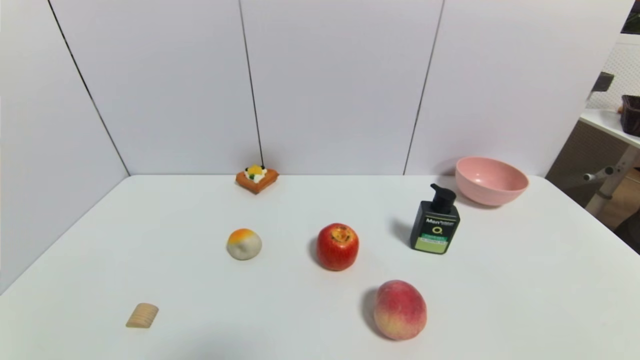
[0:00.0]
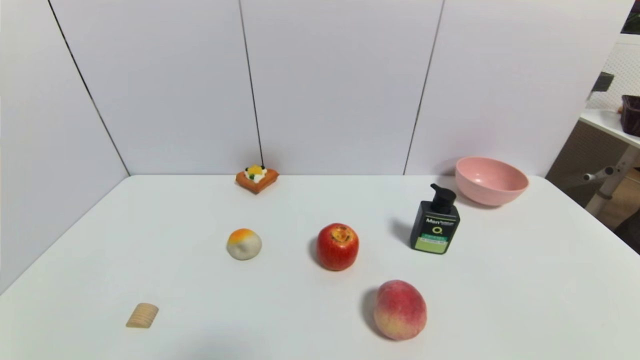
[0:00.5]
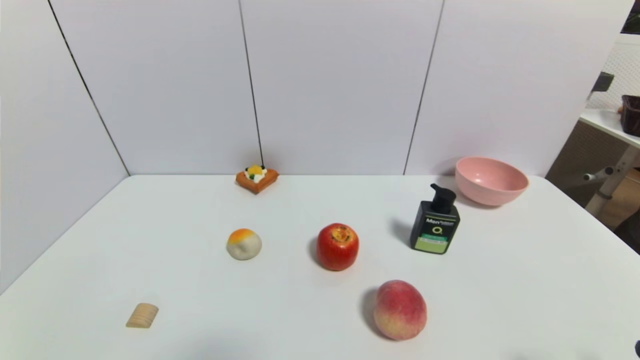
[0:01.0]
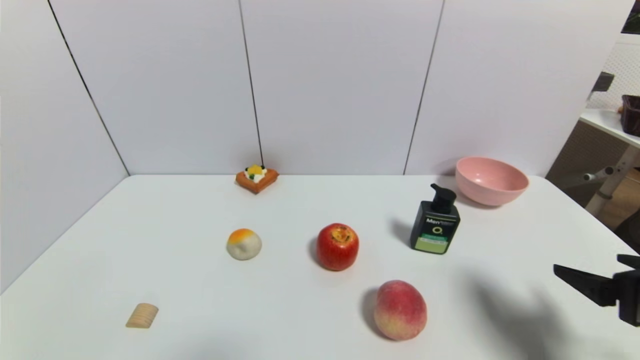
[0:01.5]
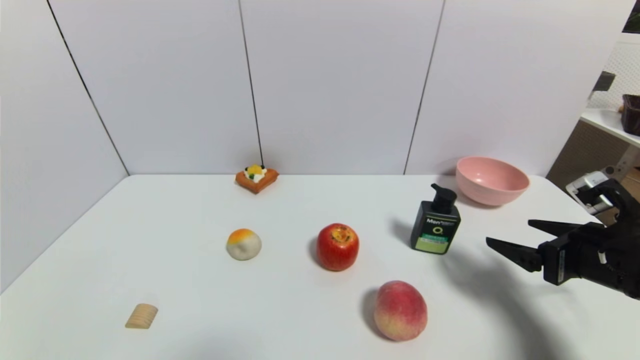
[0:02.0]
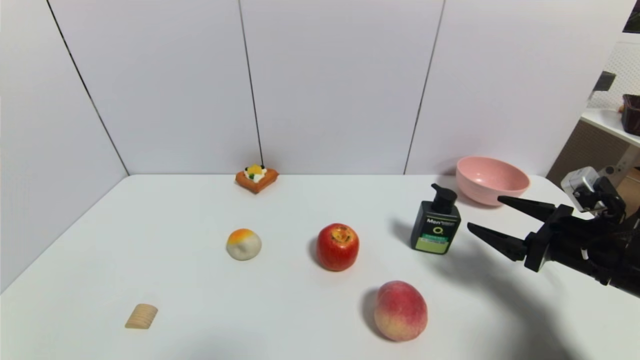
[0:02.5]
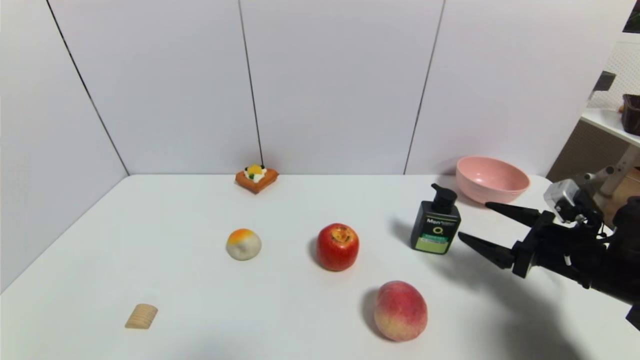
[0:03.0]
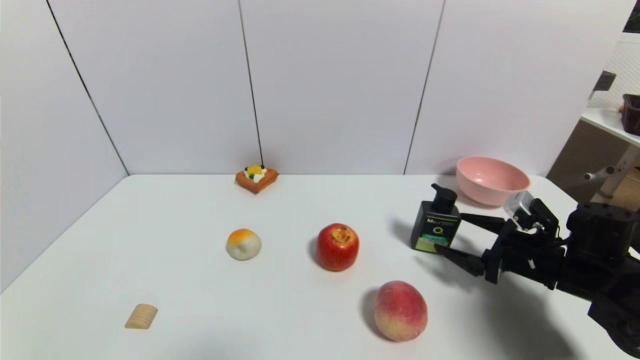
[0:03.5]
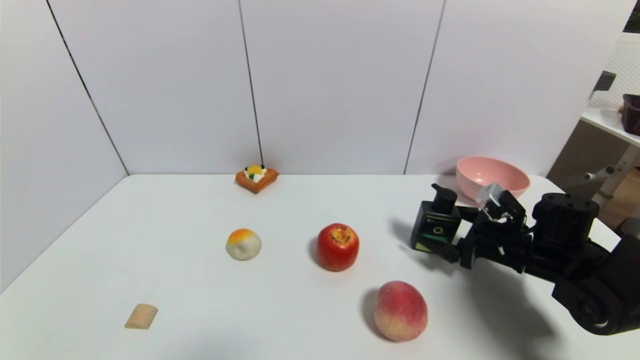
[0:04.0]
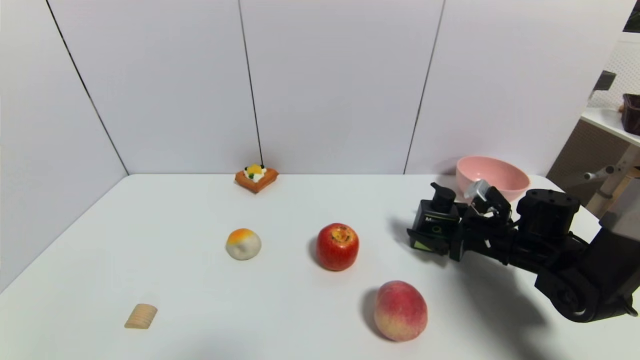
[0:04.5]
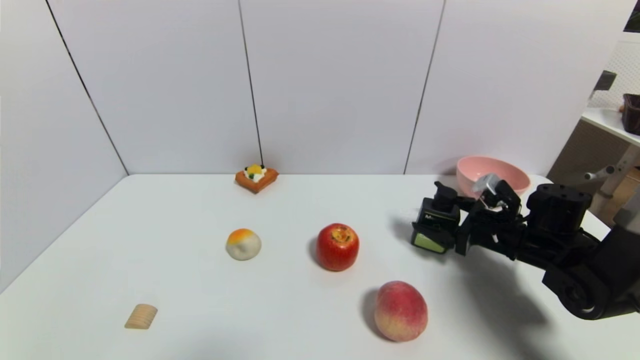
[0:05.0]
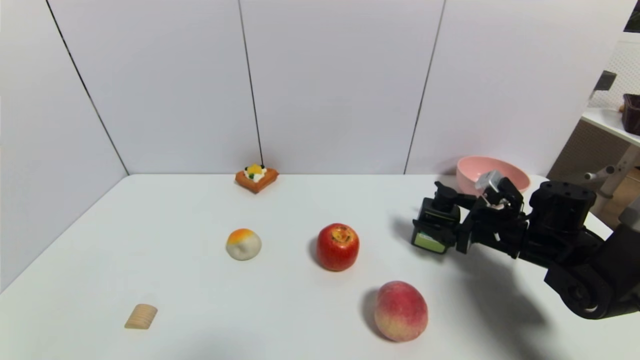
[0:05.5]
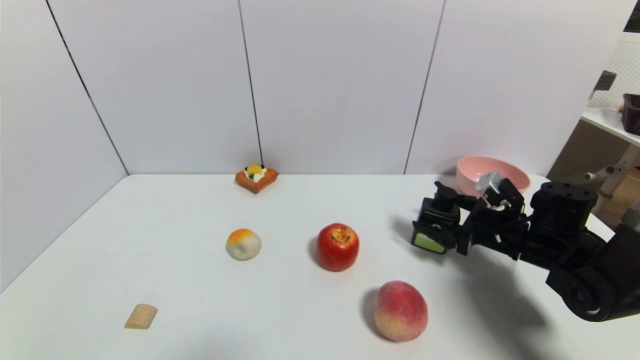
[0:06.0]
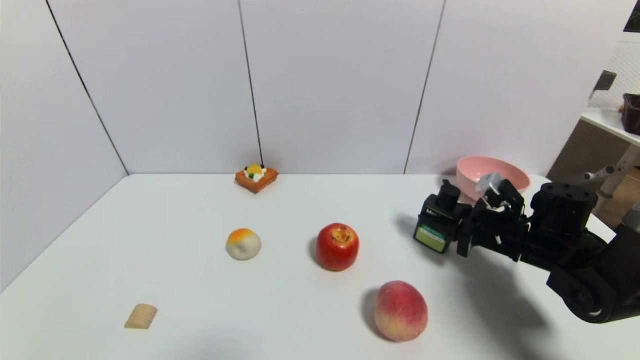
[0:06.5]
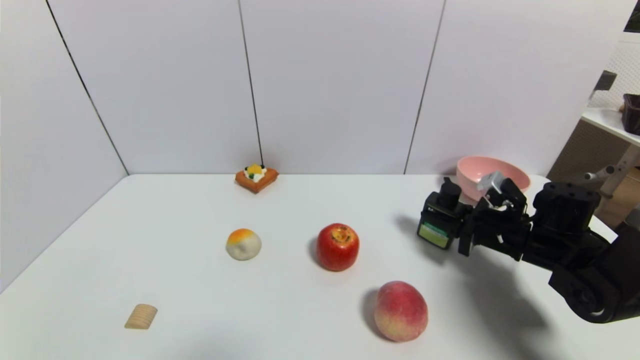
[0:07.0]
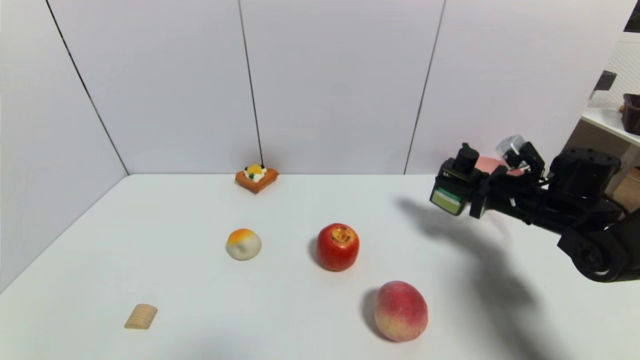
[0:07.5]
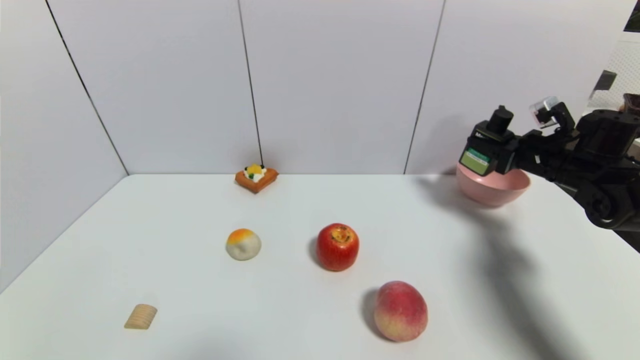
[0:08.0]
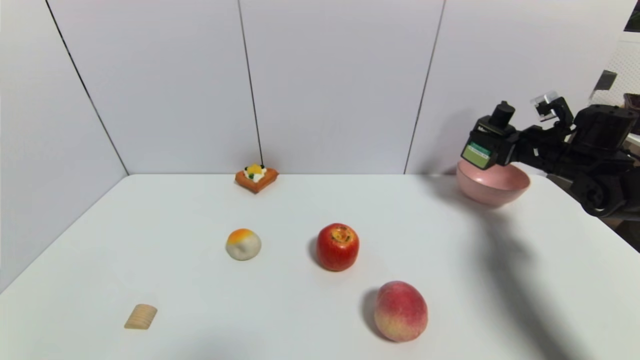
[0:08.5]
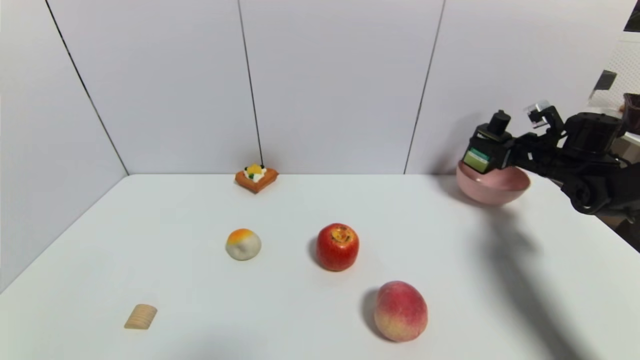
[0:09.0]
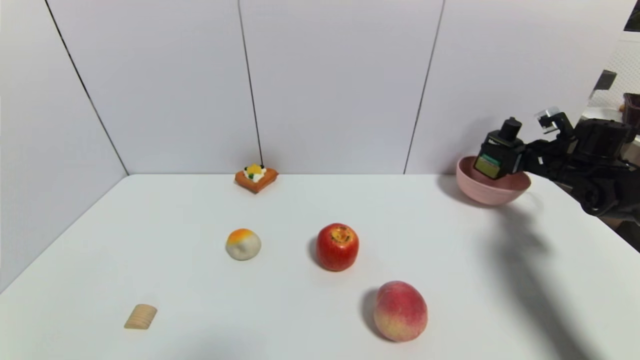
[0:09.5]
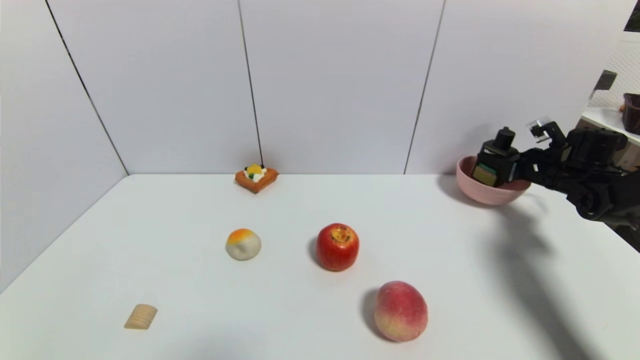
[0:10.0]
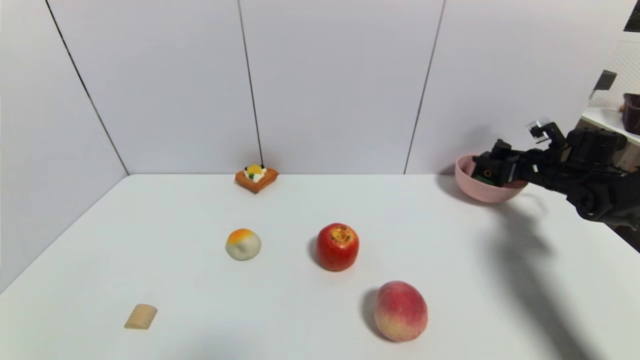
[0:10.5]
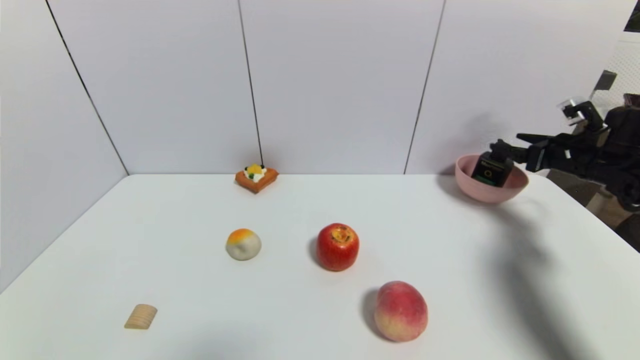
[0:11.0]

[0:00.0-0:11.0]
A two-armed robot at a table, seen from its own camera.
Task of the whole recording: use a gripper to pick the target object and place on the pink bowl.
Step, 0:00.0 to 0:06.5: Grasp the hard facial cleanser with the right gripper.
Step, 0:07.0 to 0:10.5: Place the hard facial cleanser on the pink bowl with the right gripper.
0:00.0 to 0:02.0: The right gripper moves forward, roughly 25 cm.
0:02.0 to 0:03.5: The right gripper moves downward and forward, some 10 cm.
0:03.5 to 0:05.5: The right gripper moves about 5 cm.
0:05.5 to 0:07.5: The right gripper goes approximately 5 cm upward, and closes.
0:07.5 to 0:09.0: The right gripper goes roughly 15 cm forward and to the right.
0:09.0 to 0:11.0: The right gripper is displaced backward by roughly 5 cm, and opens.

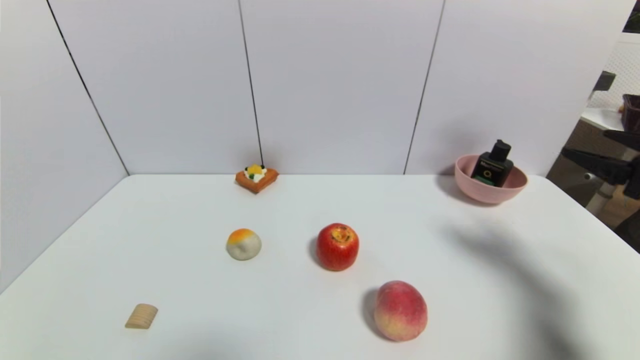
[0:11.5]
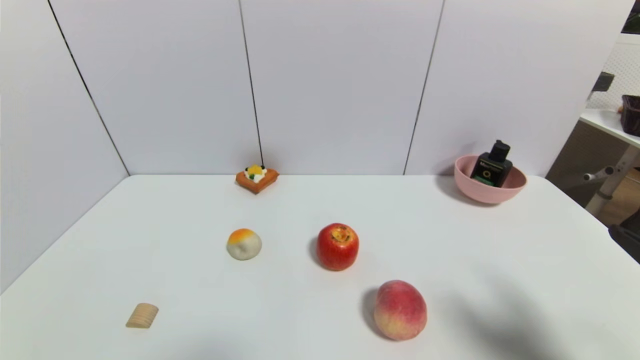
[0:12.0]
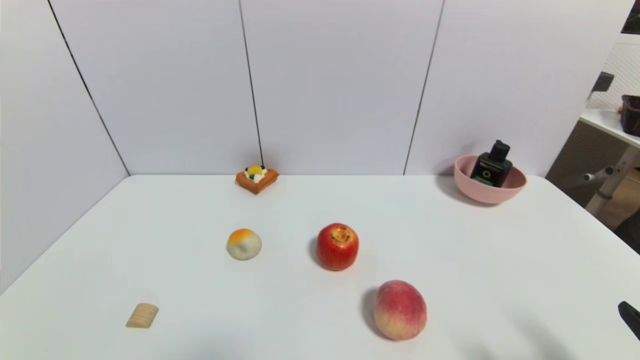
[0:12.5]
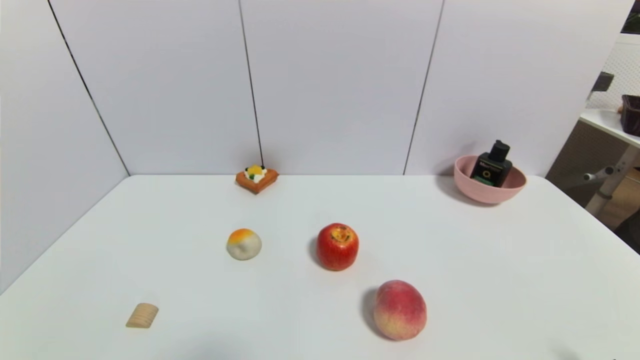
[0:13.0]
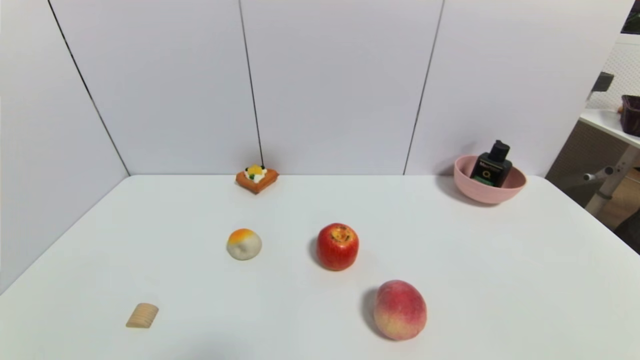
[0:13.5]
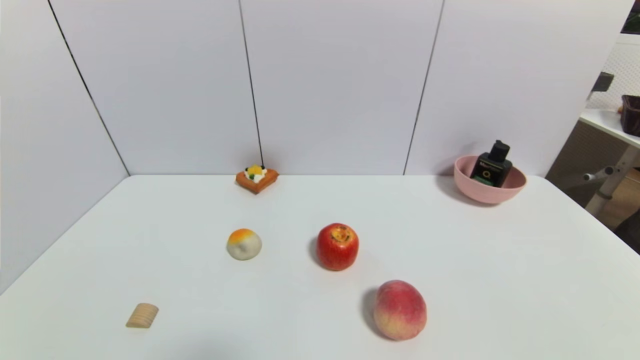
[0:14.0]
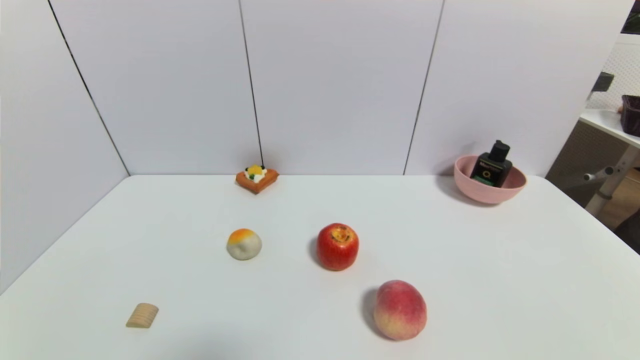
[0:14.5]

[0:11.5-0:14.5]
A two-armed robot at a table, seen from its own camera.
Task of the whole recording: use a gripper to pick the target object and place on the pink bowl.
0:11.5 to 0:13.0: The right gripper goes approximately 25 cm backward and downward.
